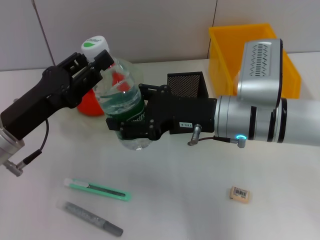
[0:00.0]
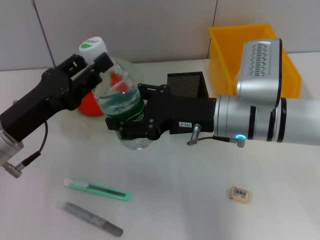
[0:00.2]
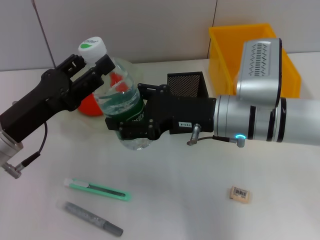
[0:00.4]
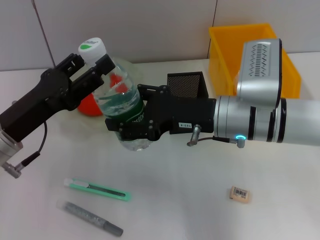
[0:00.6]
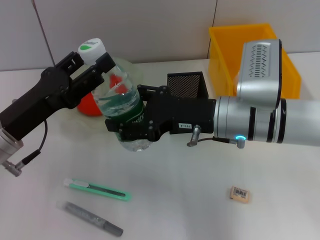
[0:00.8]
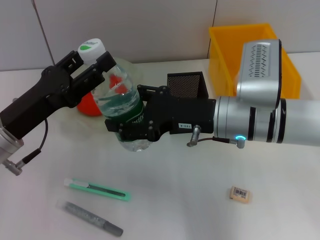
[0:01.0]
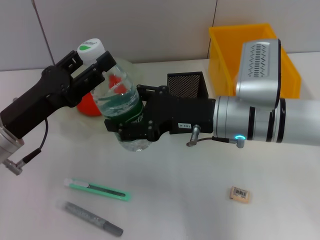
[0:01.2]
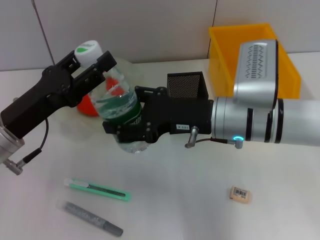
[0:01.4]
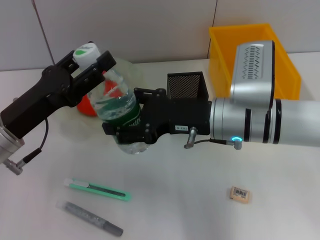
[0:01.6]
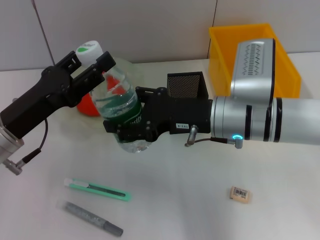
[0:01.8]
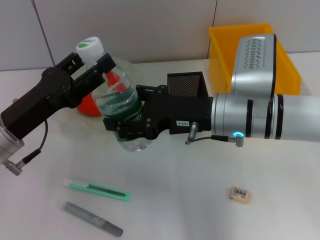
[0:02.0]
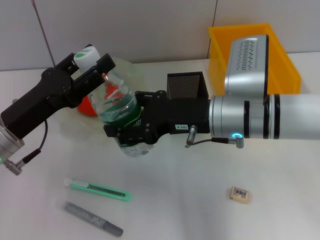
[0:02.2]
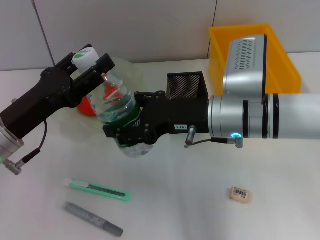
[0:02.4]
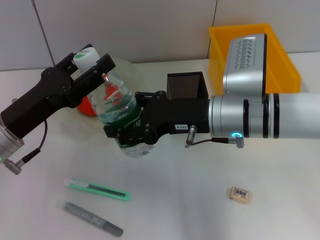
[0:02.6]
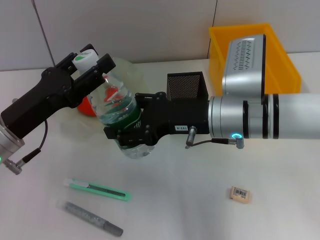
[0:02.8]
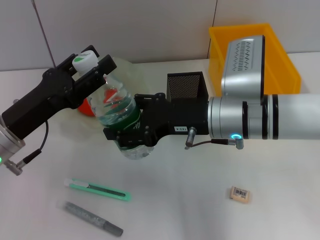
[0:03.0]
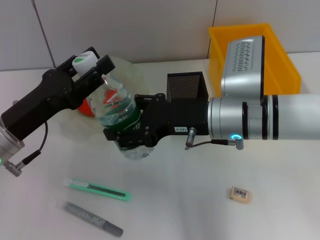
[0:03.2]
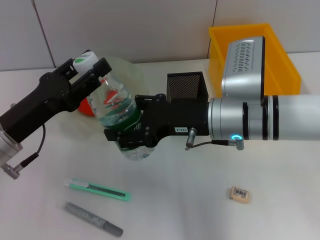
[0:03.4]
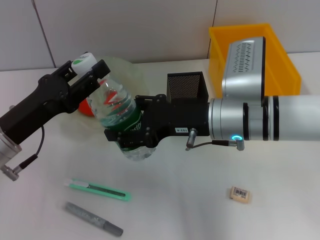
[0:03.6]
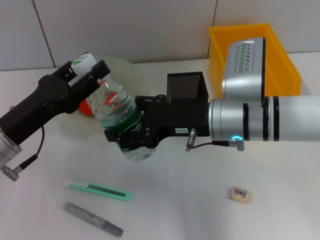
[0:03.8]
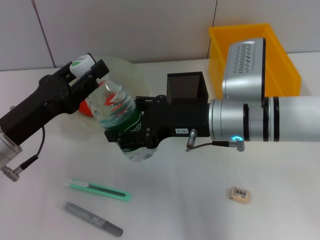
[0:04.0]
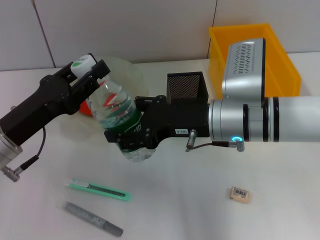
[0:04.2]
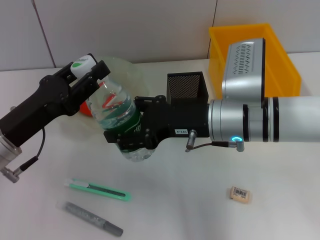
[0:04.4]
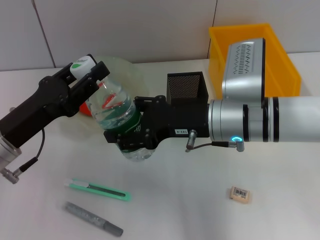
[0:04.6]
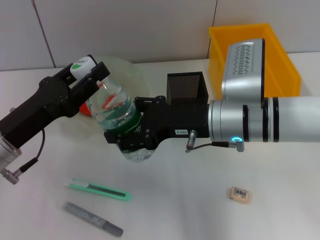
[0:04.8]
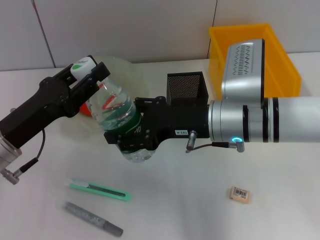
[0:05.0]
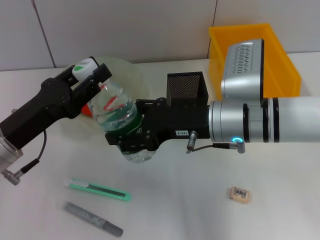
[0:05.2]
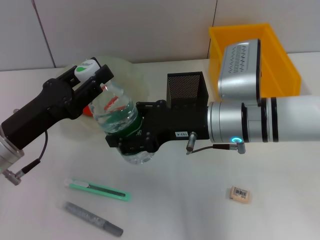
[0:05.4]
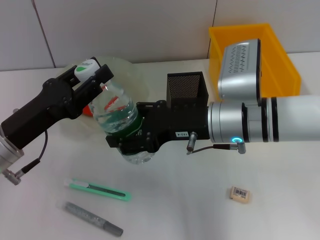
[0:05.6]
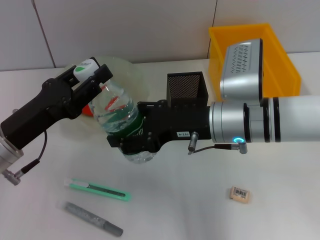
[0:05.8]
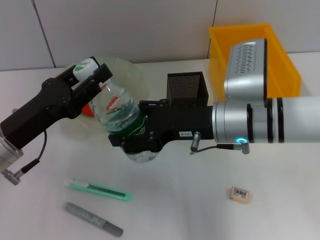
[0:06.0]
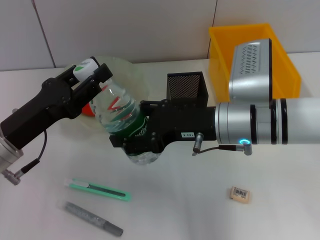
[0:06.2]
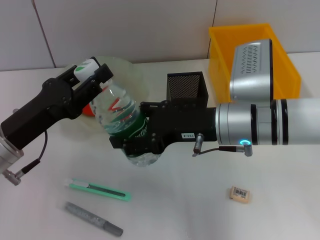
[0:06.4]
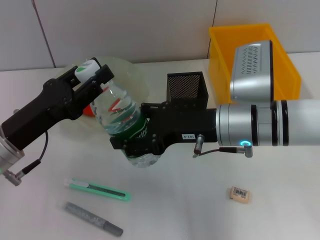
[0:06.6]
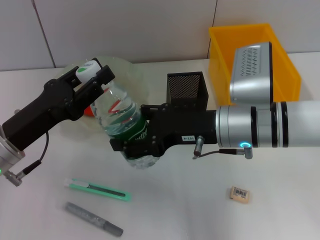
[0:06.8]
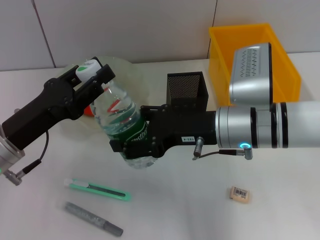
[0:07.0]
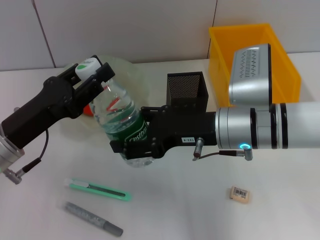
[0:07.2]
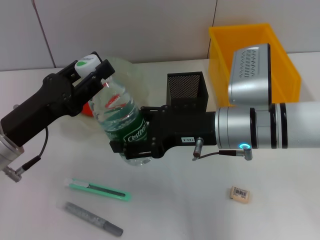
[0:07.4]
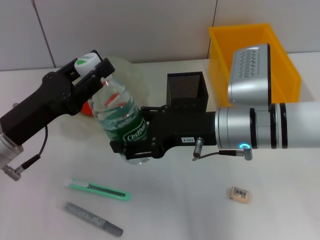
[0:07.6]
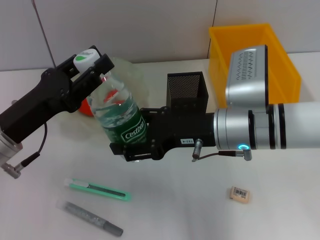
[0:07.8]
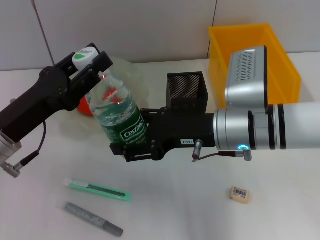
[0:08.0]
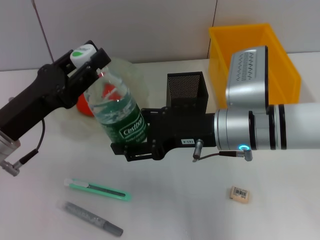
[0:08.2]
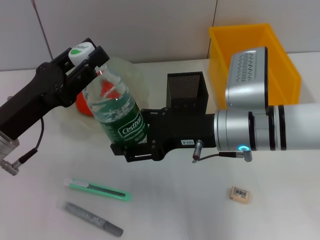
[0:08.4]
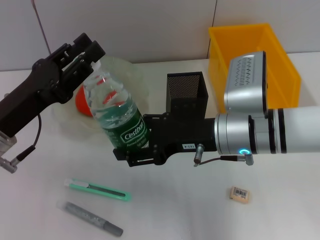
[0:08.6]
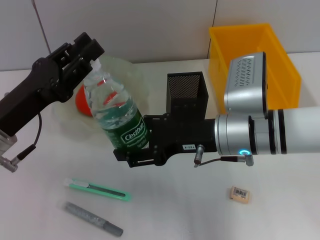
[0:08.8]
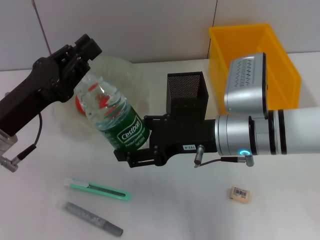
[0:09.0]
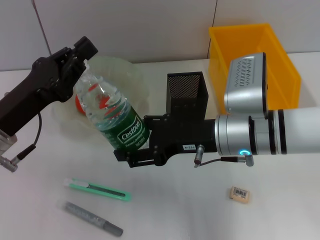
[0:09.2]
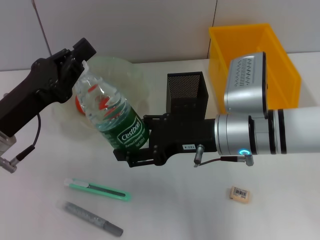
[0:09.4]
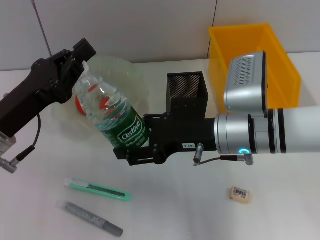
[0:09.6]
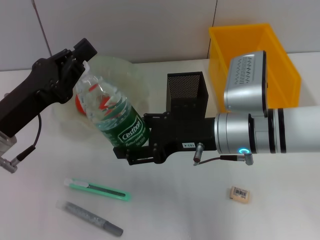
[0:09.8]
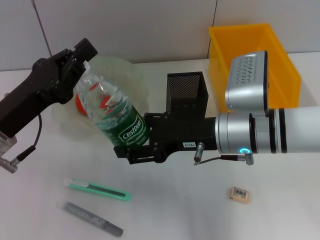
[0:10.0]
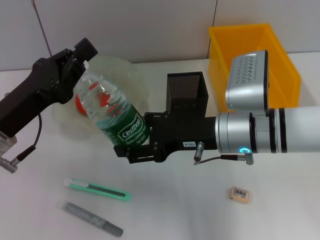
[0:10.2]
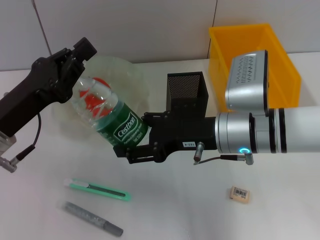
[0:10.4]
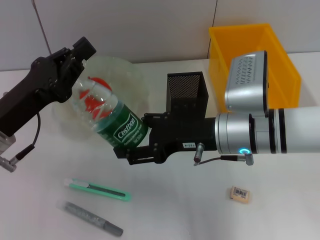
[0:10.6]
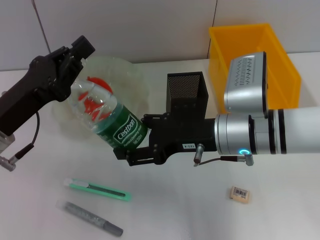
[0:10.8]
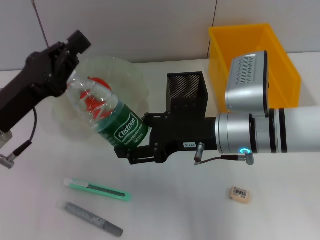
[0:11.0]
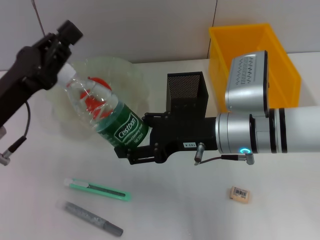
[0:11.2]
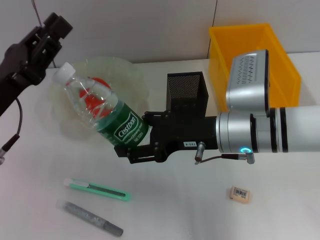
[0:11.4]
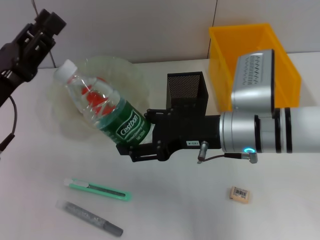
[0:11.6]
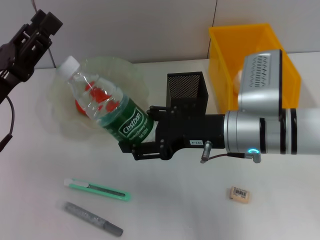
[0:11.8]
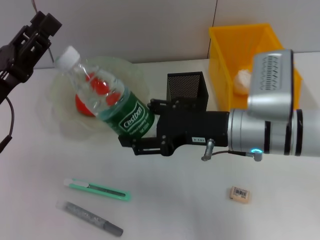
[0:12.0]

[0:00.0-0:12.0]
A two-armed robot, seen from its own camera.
0:00.0 to 0:01.6: The two grippers keep their place.
0:01.6 to 0:03.0: The grippers make only small movements.
0:03.0 to 0:06.0: Neither gripper changes place.
0:06.0 to 0:07.6: The two grippers keep their place.
0:07.6 to 0:10.4: Both grippers stay put.
0:10.4 to 0:12.0: The left gripper opens its fingers.

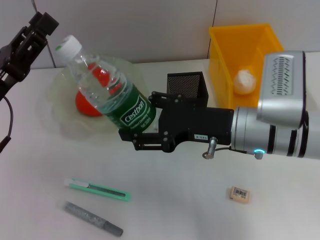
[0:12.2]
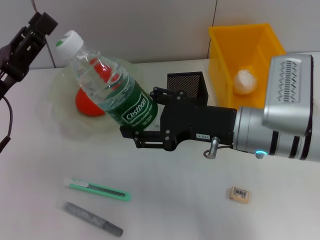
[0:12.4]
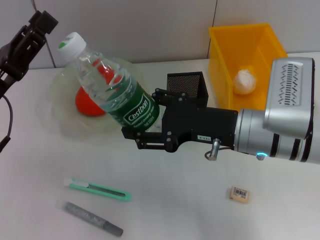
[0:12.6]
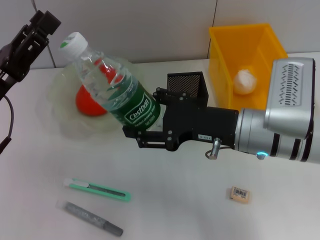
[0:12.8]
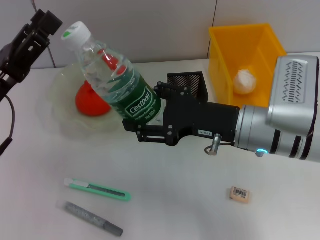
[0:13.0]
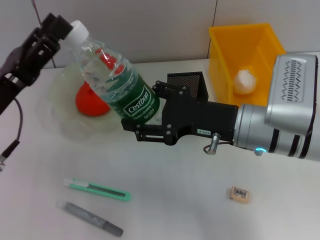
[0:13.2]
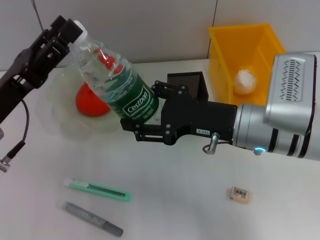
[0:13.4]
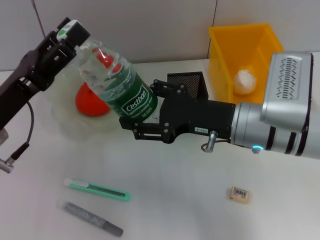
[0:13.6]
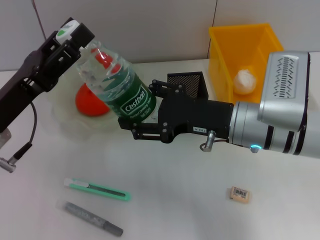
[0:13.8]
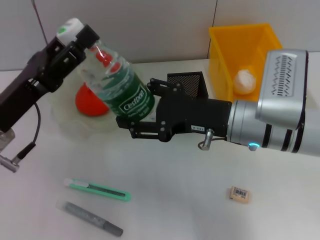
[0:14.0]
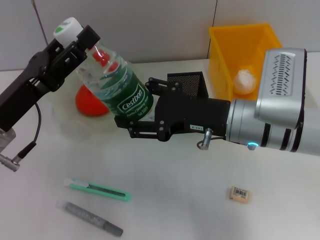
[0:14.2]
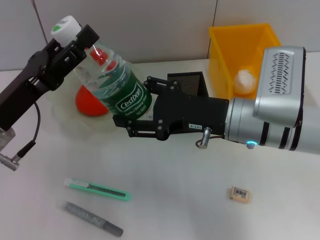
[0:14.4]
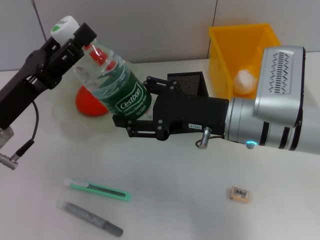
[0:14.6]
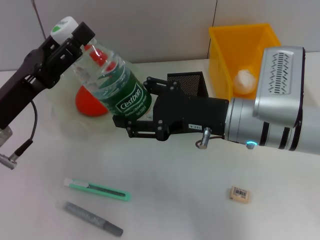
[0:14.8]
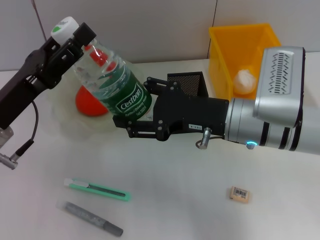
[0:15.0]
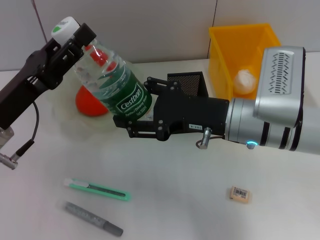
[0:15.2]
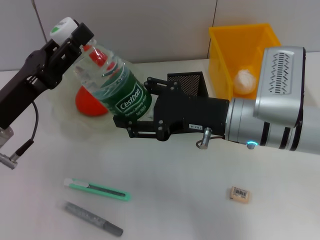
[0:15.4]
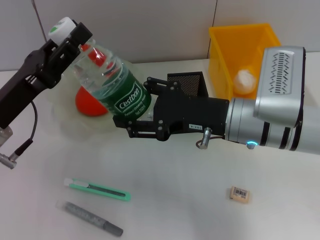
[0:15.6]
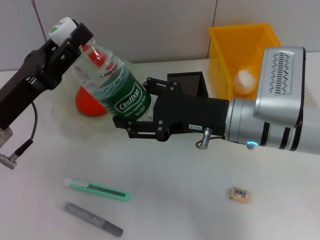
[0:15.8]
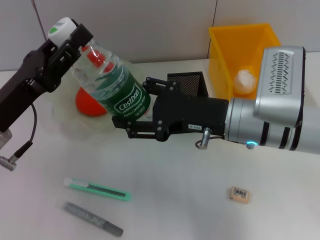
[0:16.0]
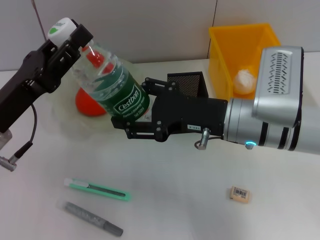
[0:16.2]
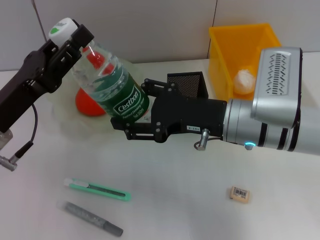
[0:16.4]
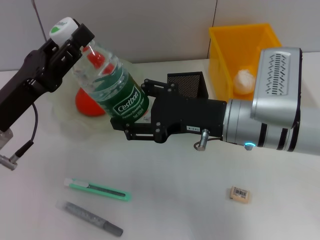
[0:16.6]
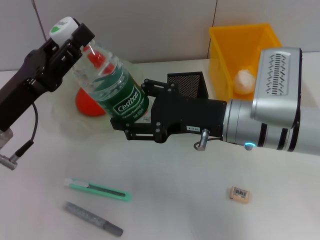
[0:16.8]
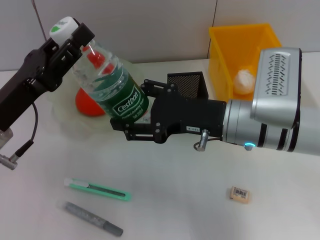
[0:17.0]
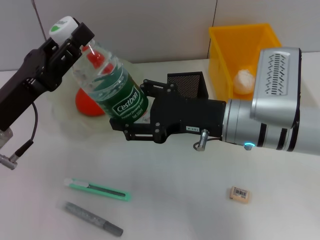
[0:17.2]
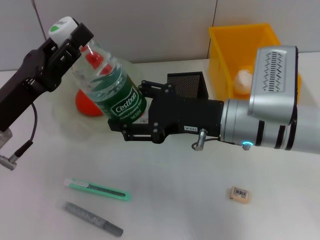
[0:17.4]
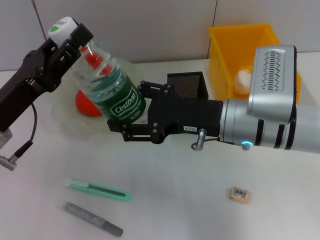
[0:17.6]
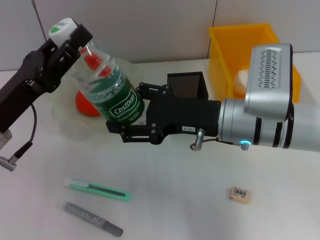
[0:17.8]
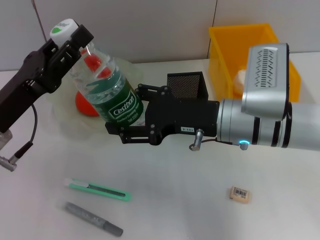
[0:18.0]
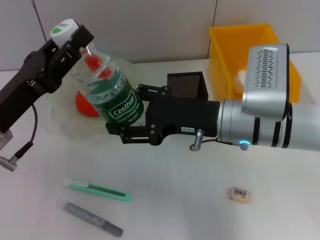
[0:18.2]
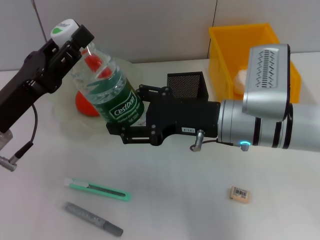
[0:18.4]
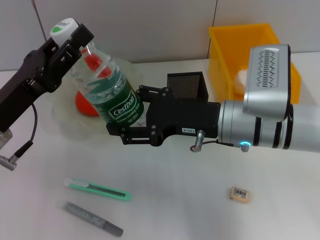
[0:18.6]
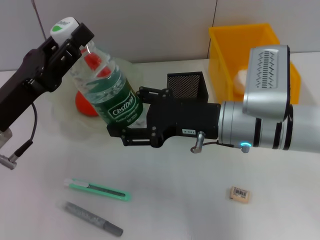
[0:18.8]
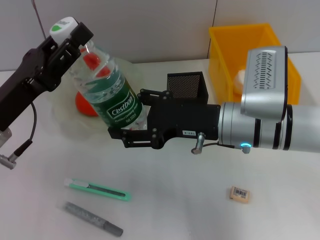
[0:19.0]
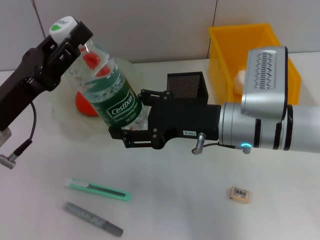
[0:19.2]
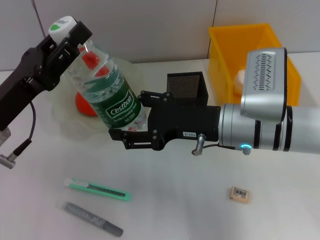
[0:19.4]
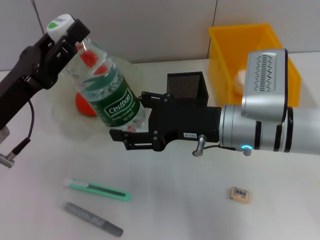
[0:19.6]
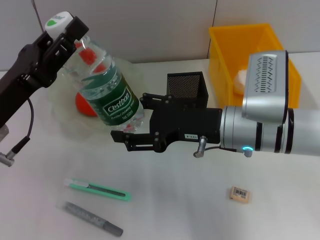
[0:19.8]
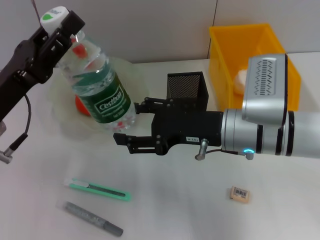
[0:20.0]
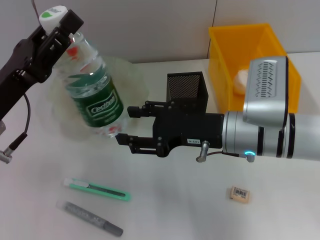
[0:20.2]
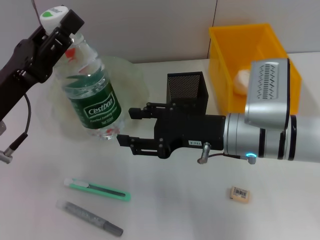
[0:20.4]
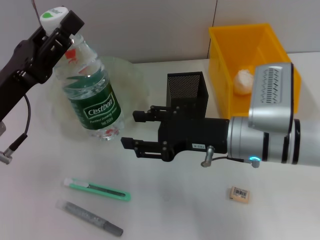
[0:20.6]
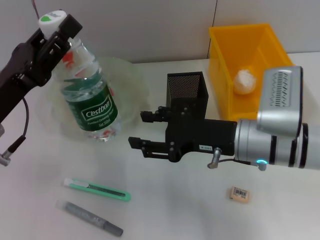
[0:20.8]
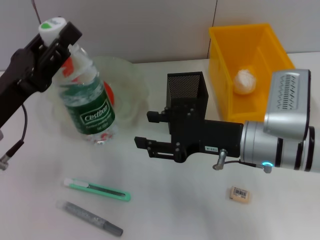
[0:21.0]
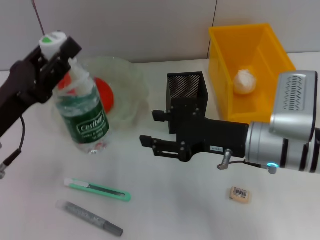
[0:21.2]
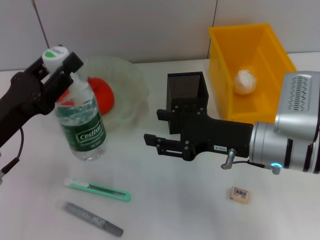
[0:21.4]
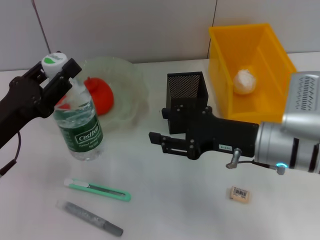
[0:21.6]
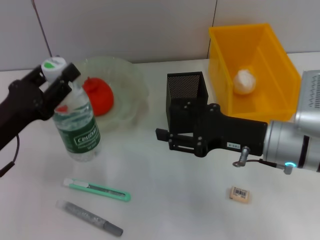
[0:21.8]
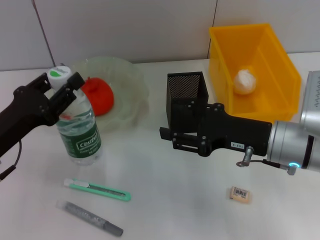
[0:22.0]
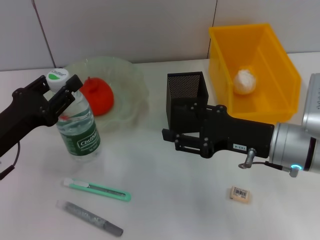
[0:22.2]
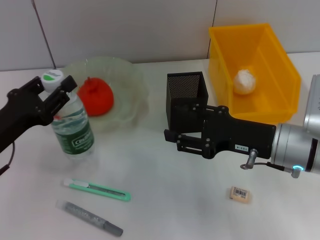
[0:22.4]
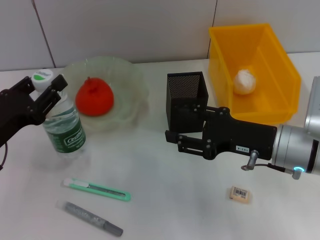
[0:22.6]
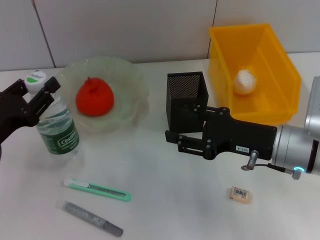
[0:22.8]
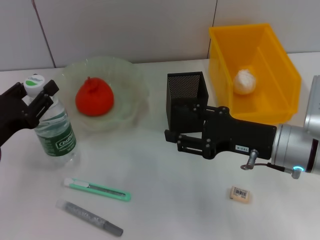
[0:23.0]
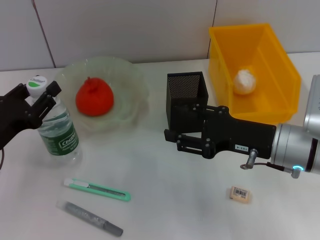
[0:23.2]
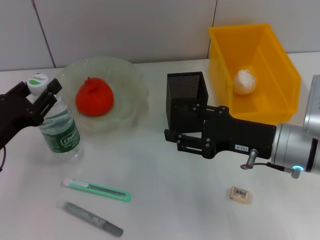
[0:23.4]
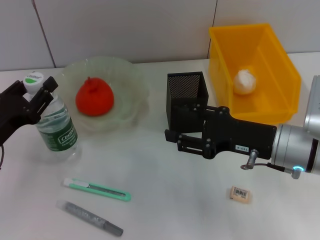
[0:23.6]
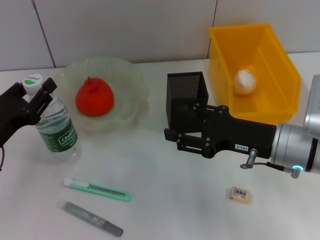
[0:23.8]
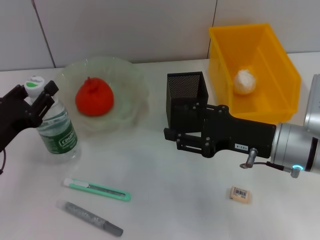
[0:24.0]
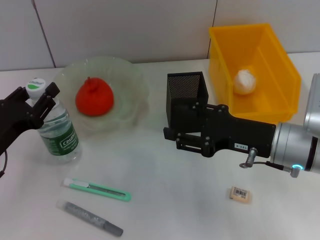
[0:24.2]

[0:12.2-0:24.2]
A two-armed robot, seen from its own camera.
Step, 0:12.2 to 0:21.0: Pass the water bottle from the right hand to the left hand.
0:12.2 to 0:13.8: There are only small adjustments of the grippers.
0:13.8 to 0:16.6: The two grippers keep their place.
0:16.6 to 0:18.2: Both grippers stay put.
0:18.2 to 0:19.8: Neither gripper changes place.
0:22.6 to 0:24.2: The grippers stay close to where they were, moving slightly.
